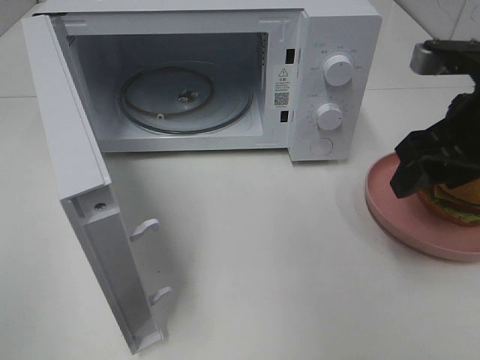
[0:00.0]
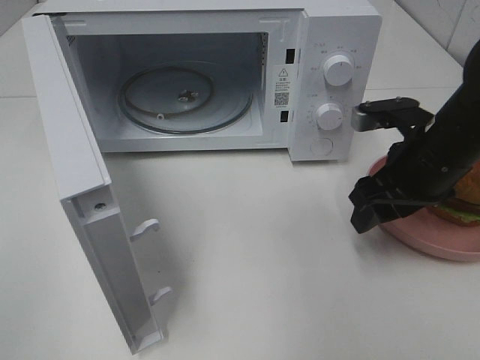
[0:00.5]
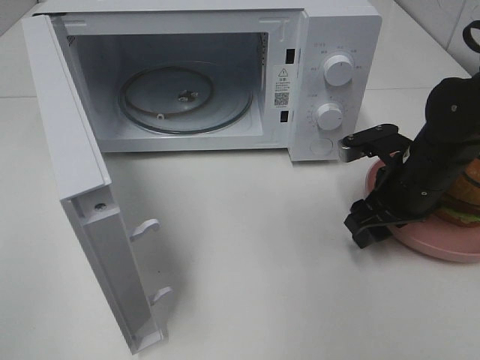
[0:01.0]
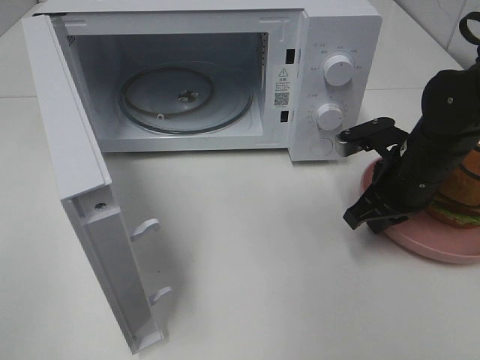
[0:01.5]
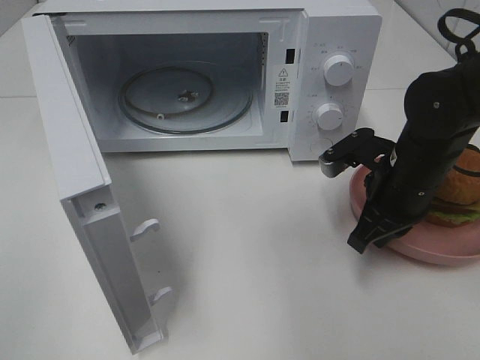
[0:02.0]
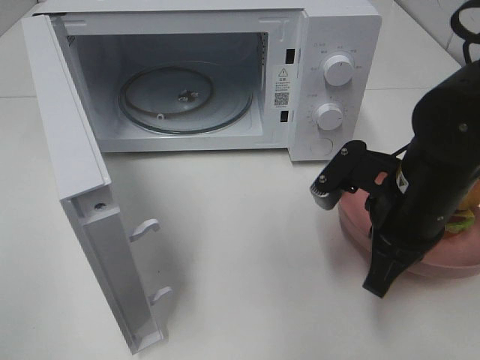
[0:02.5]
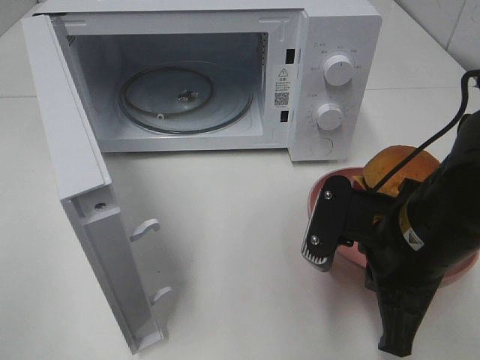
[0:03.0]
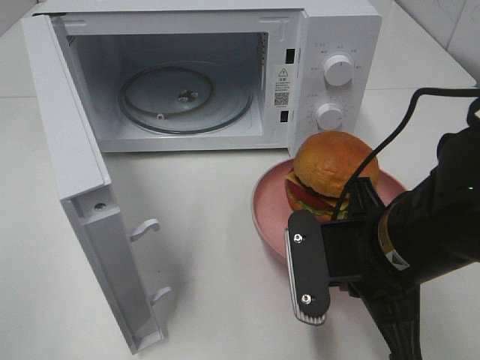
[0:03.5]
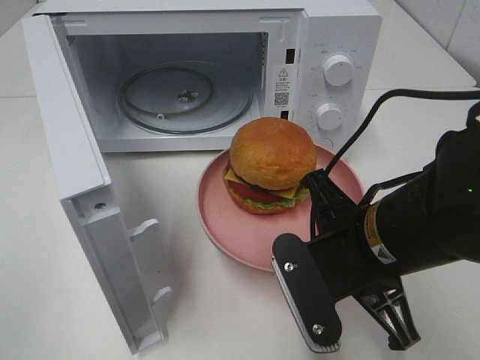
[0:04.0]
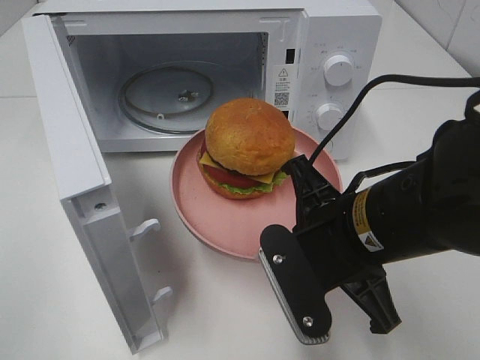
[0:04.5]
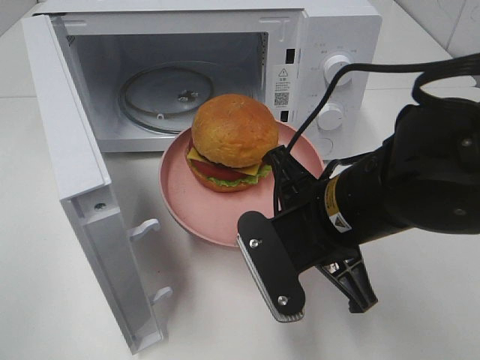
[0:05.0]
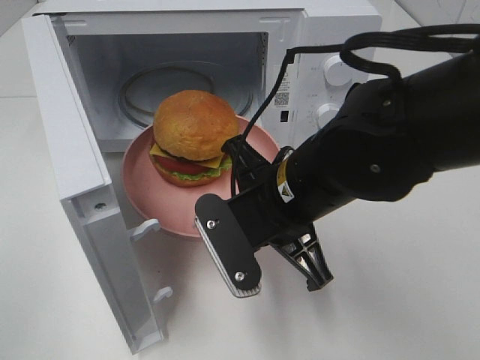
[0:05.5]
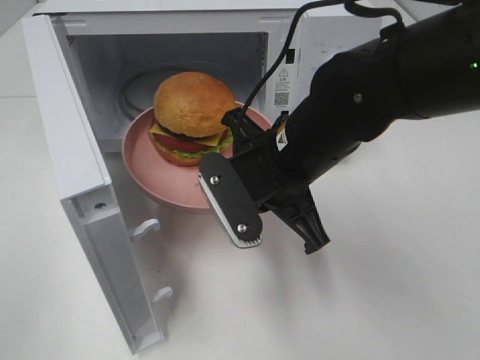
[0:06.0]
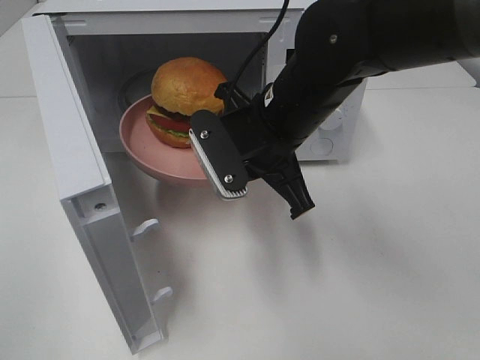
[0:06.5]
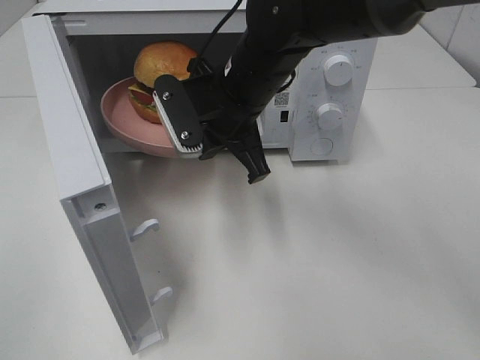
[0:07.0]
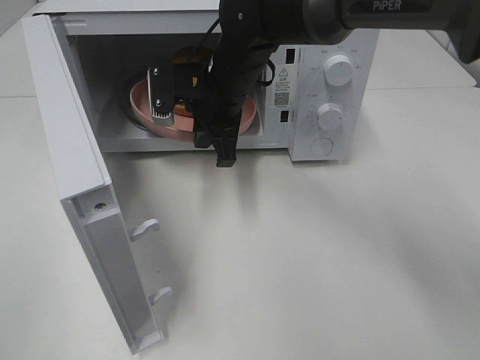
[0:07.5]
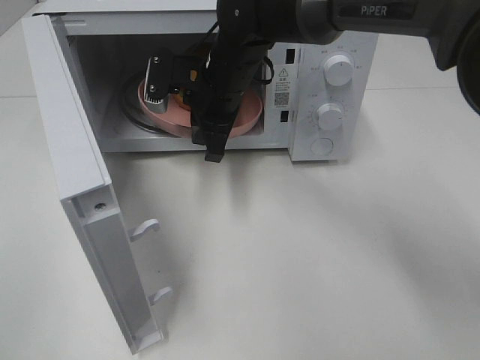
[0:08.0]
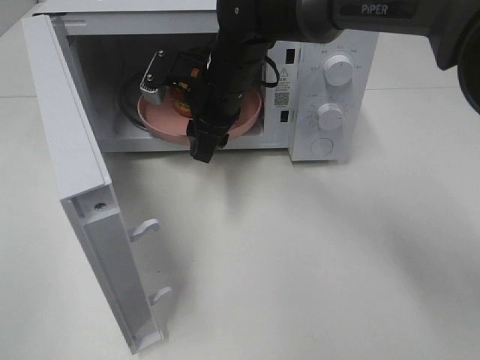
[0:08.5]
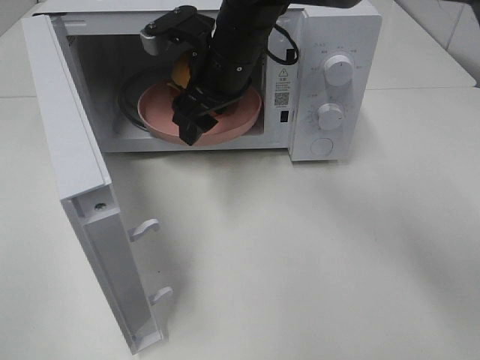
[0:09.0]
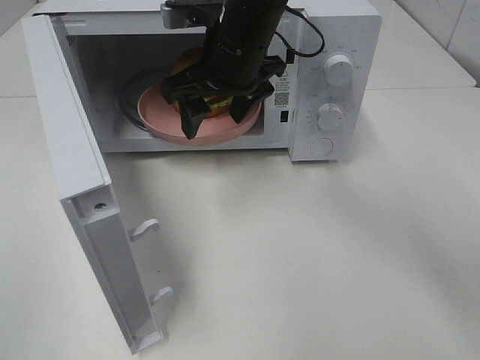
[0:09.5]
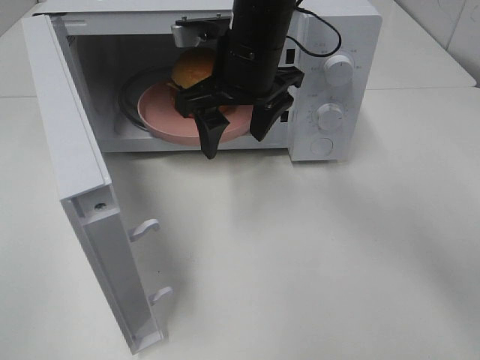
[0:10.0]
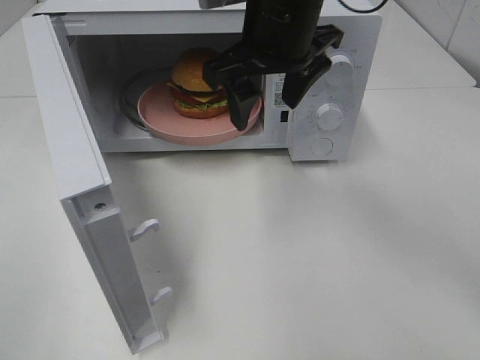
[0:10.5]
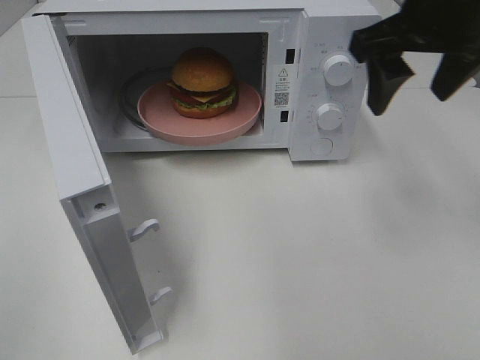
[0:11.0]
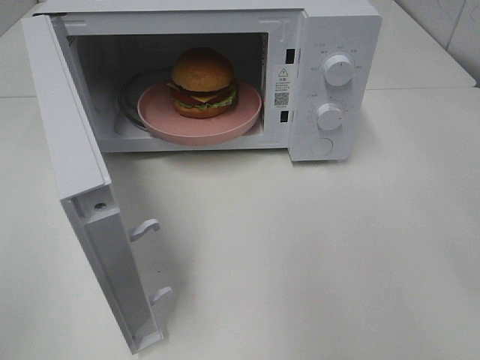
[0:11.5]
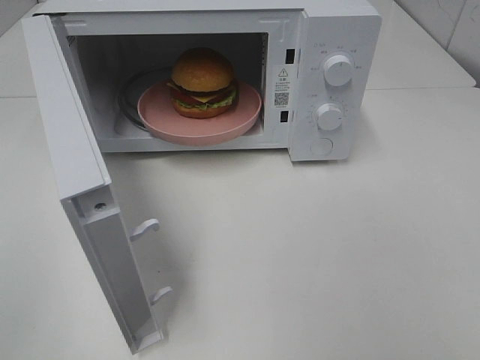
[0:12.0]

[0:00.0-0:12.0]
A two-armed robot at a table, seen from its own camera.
Task of the whole recording: Heat the burger.
Step, 0:02.0 to 0:08.0: Right hand: place the plate in the microwave.
0:00.0 to 0:02.0: The right gripper shifts roughly 10 cm downward, and closes.
0:02.0 to 0:04.0: The right gripper goes approximately 15 cm backward and to the left.
0:04.0 to 0:06.0: The right gripper is displaced forward and to the left by roughly 10 cm.
0:06.0 to 0:08.0: The right gripper heads forward and to the left, covering roughly 15 cm.
0:08.0 to 0:10.0: The right gripper moves upward, about 5 cm, and opens its fingers.
0:10.0 to 0:12.0: The right gripper goes roughly 40 cm backward and to the right.

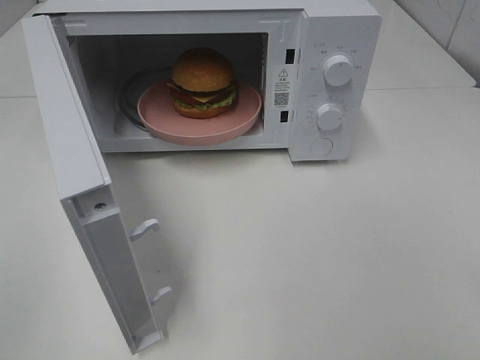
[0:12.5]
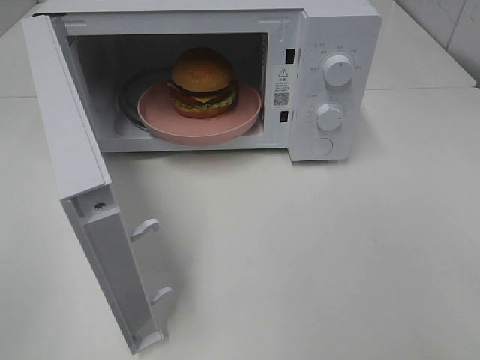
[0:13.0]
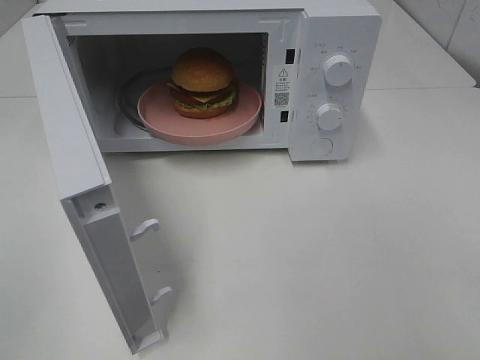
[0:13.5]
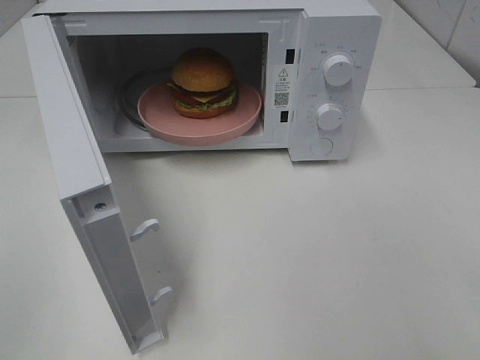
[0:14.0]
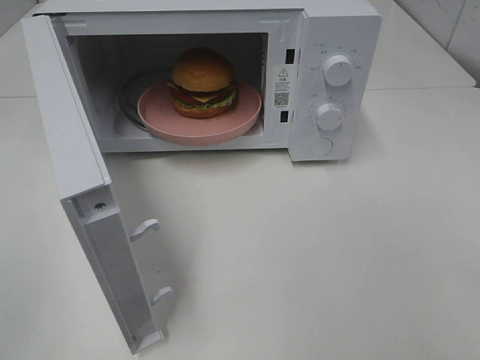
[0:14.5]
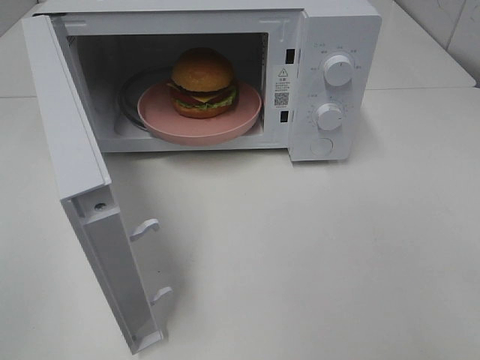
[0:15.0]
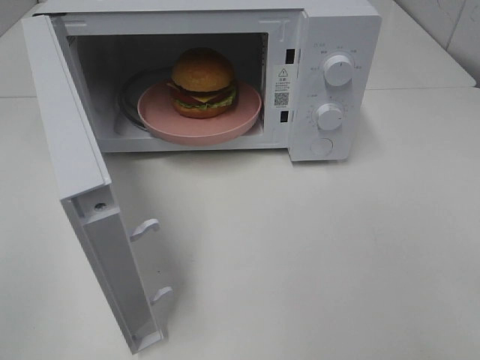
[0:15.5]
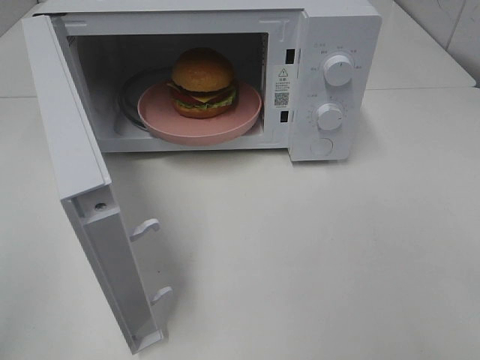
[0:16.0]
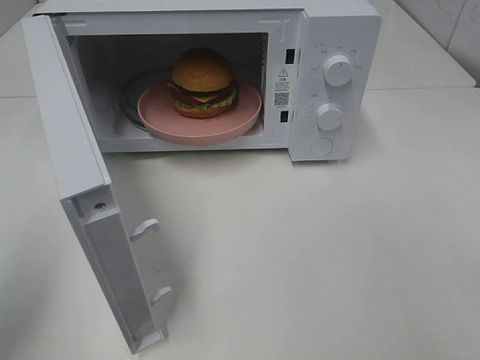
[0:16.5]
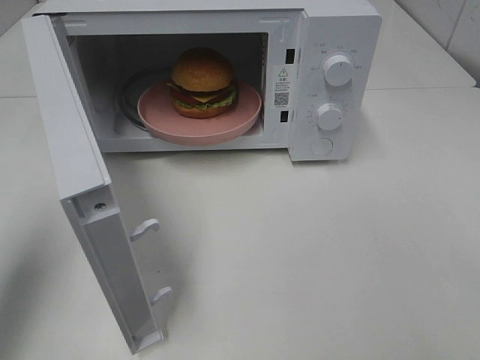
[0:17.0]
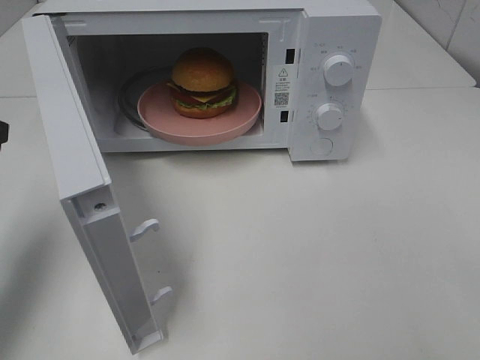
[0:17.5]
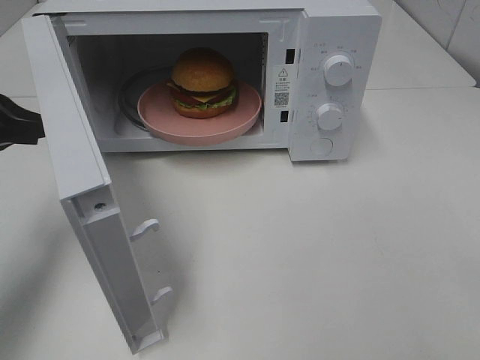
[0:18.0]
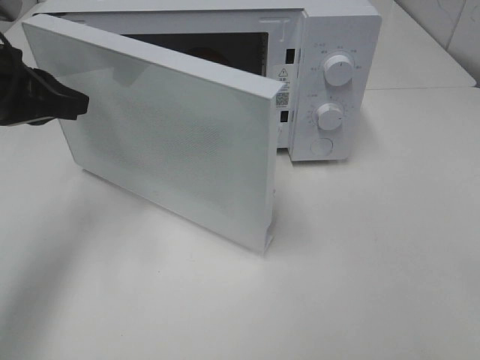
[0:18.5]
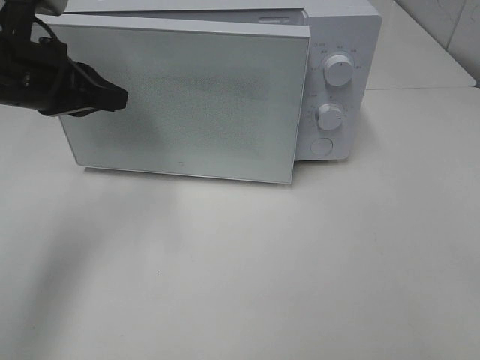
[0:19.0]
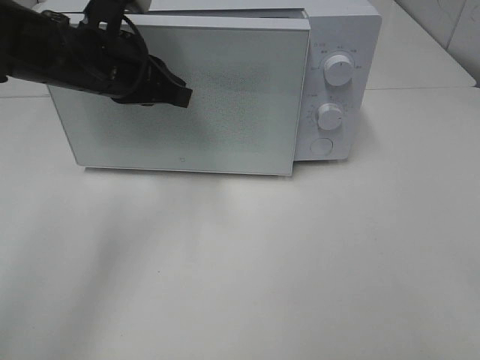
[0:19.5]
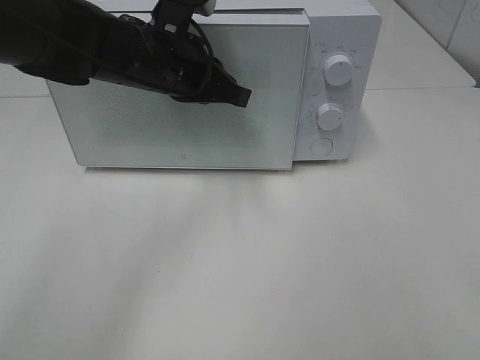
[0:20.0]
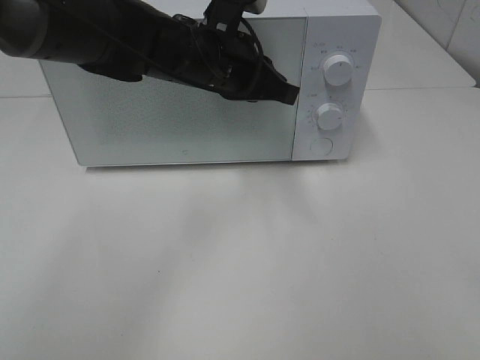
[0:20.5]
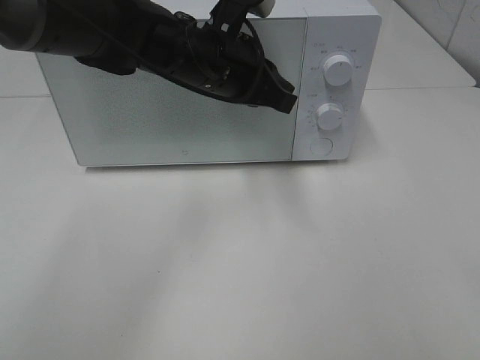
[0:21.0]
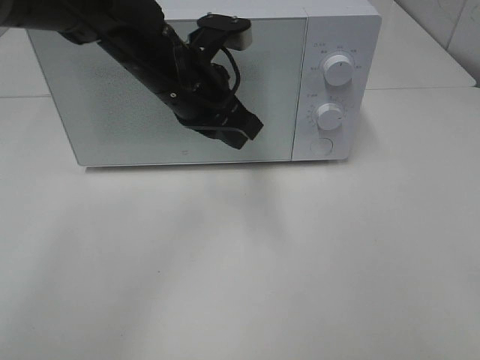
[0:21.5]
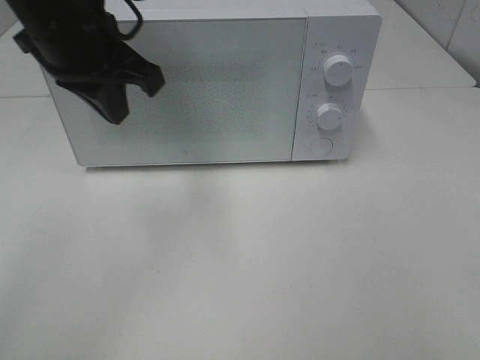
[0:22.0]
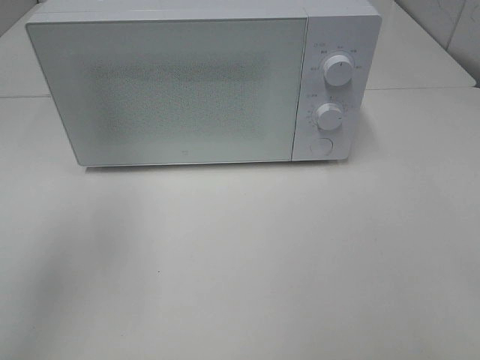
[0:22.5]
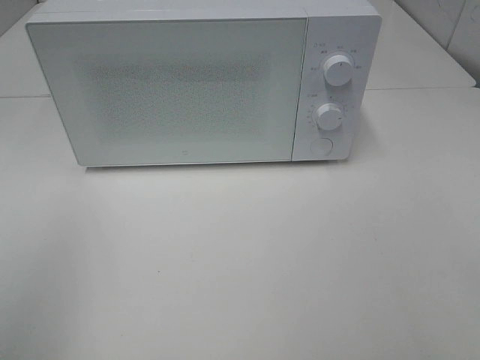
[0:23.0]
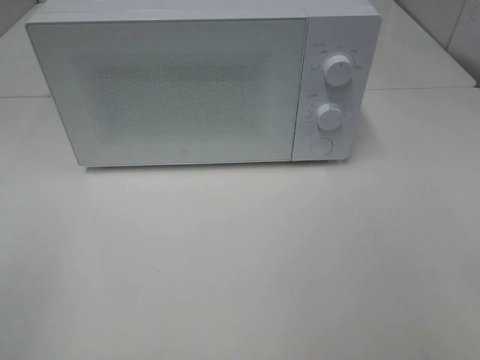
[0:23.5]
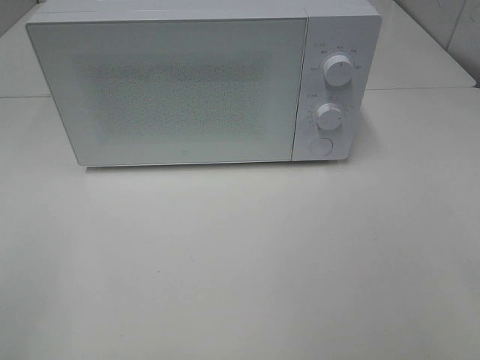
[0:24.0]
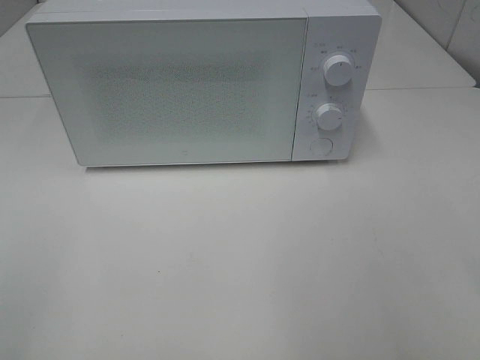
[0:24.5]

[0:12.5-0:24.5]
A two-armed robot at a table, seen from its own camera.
Task of the whole recording: Heat the burger.
Step, 0:12.5 to 0:20.5: Left hand: close the microwave door.
0:14.5 to 0:16.5: The left gripper travels forward by about 10 cm.
0:16.5 to 0:18.5: The left gripper shifts about 20 cm forward.
0:18.5 to 0:20.5: The left gripper moves to the right, about 20 cm.
0:20.5 to 0:22.5: The left gripper is displaced to the left, backward and upward by about 30 cm.

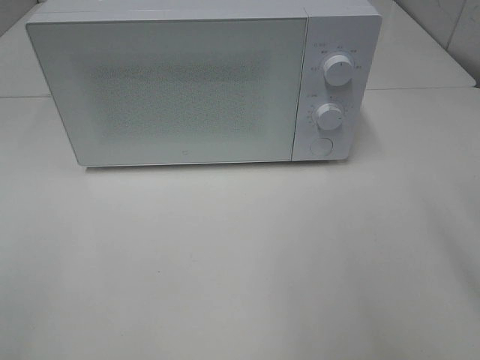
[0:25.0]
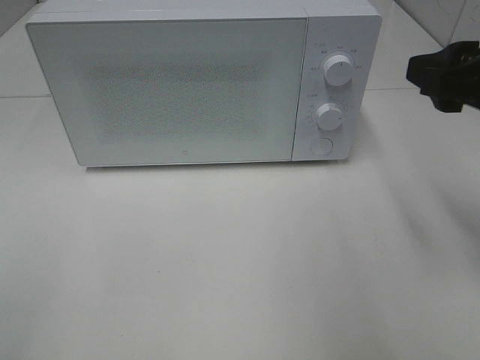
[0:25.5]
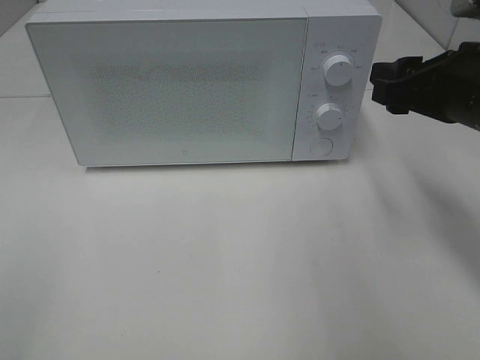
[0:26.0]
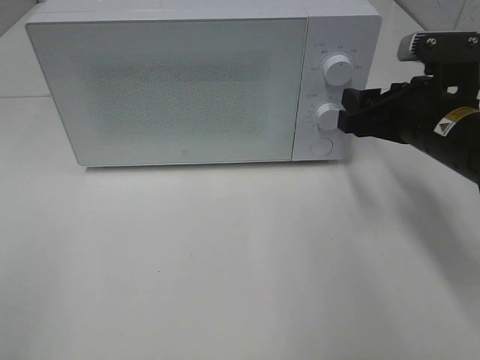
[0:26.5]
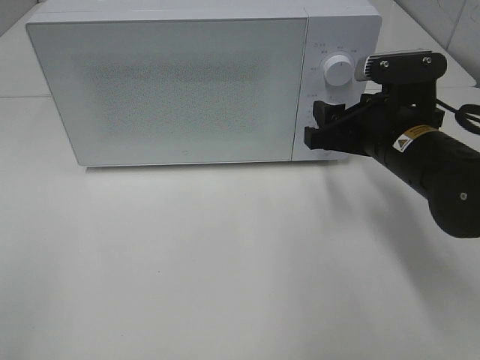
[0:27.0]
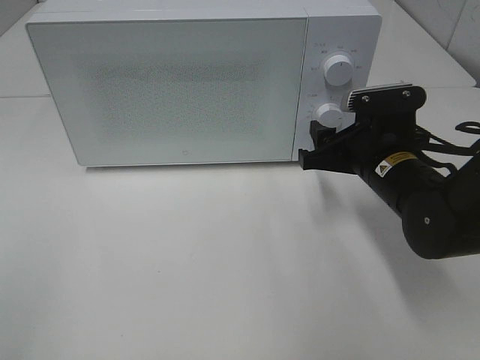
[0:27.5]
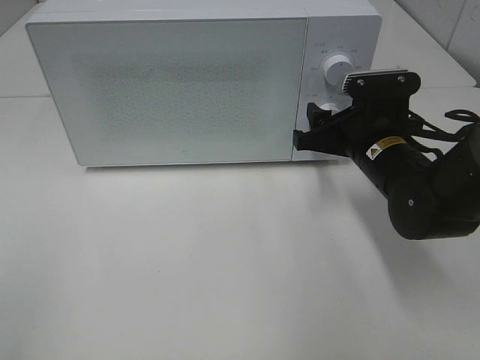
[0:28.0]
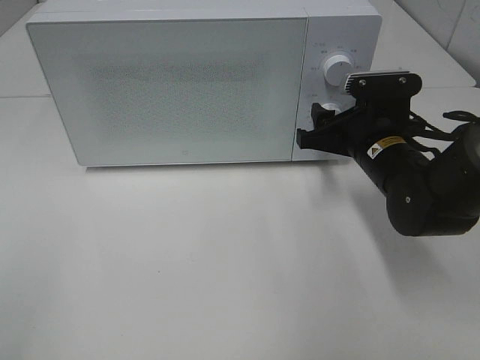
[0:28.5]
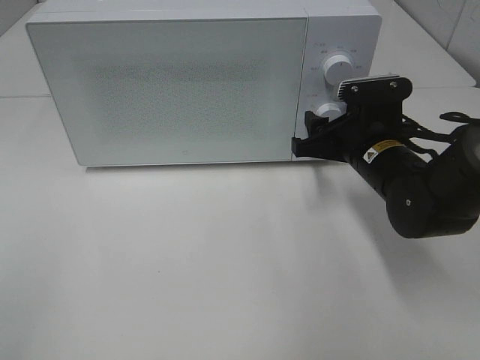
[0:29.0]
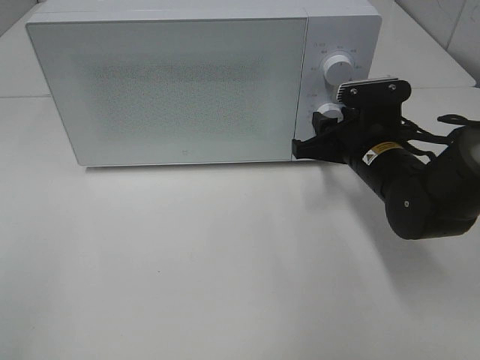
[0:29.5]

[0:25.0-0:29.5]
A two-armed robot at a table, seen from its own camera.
Task of the whole recording: Heat the burger.
0:25.0 to 0:27.0: The right gripper goes some 25 cm forward, downward and to the left.
0:27.0 to 0:29.5: The right gripper changes place by about 5 cm.
